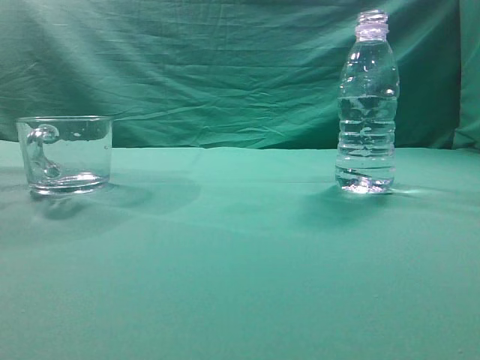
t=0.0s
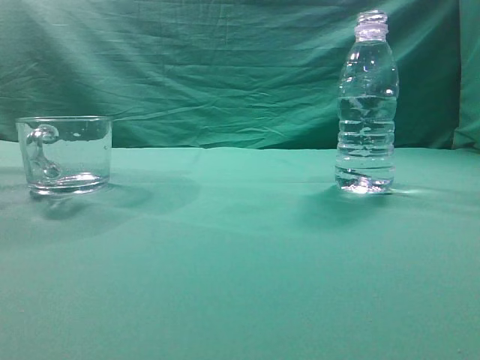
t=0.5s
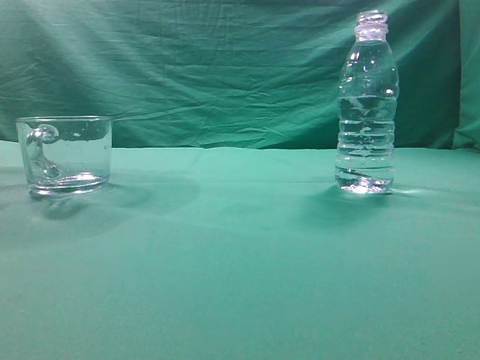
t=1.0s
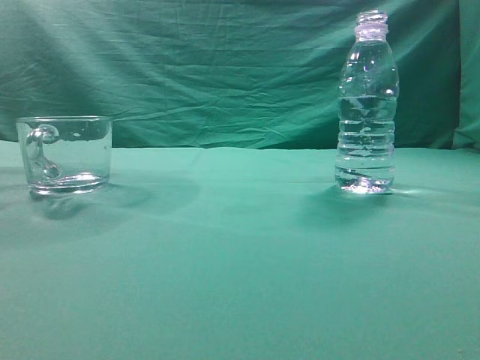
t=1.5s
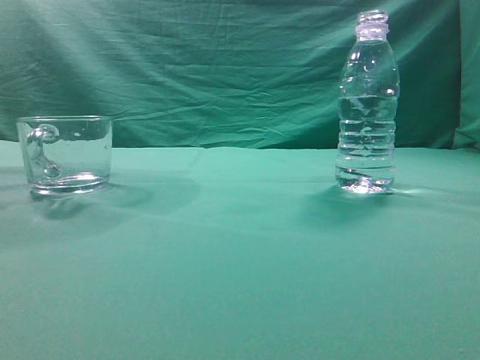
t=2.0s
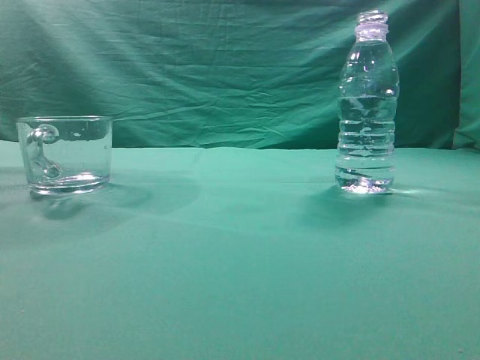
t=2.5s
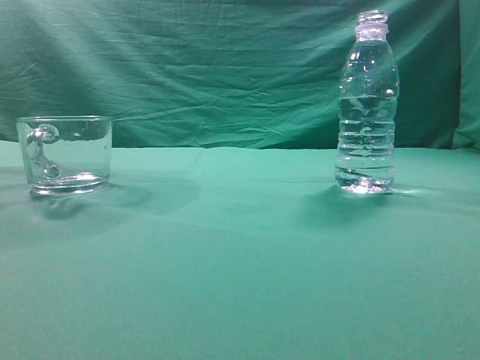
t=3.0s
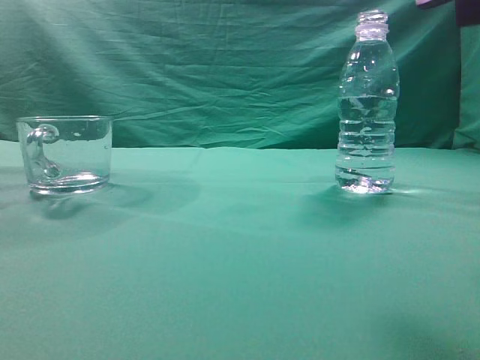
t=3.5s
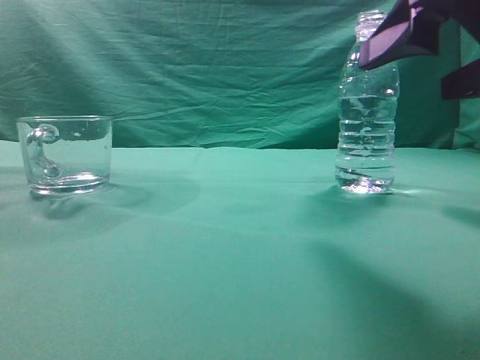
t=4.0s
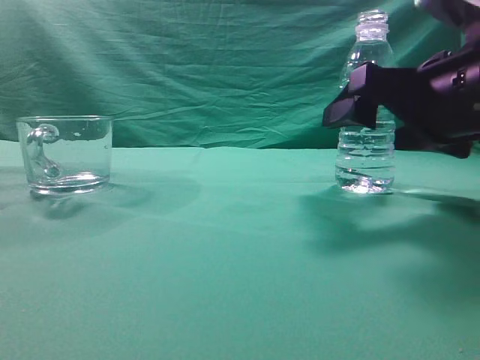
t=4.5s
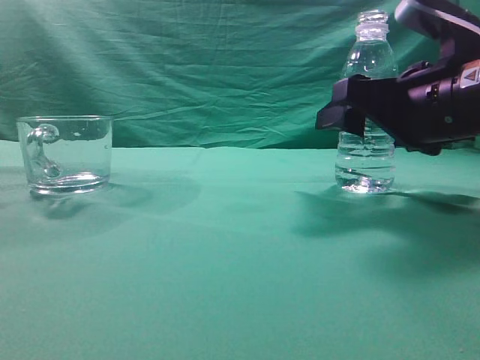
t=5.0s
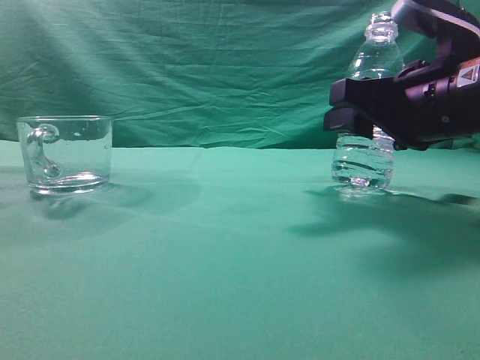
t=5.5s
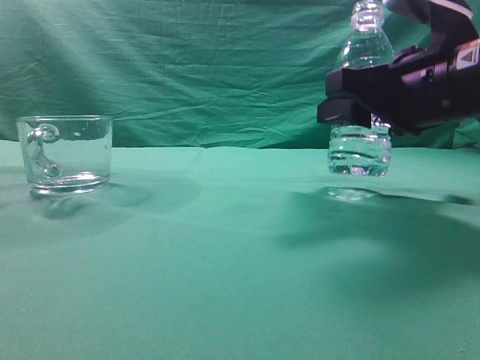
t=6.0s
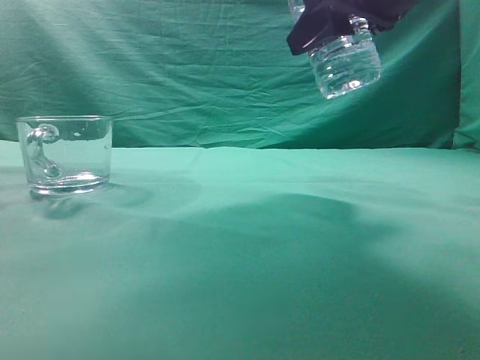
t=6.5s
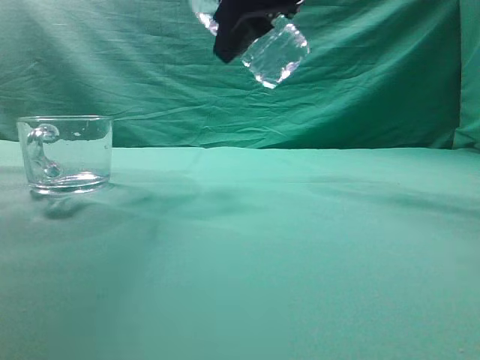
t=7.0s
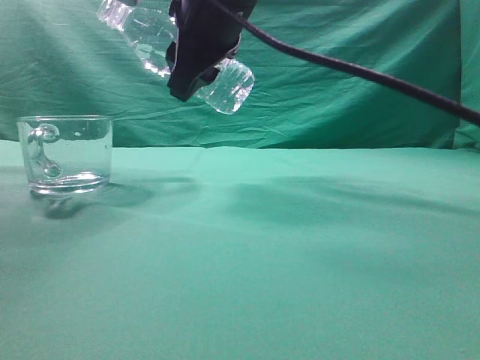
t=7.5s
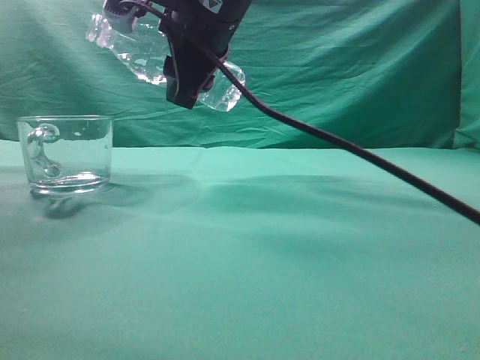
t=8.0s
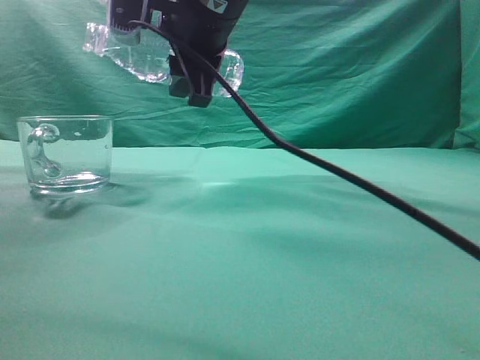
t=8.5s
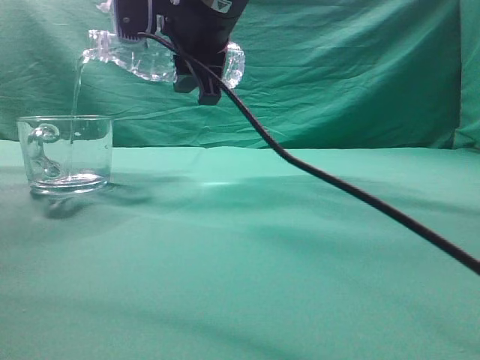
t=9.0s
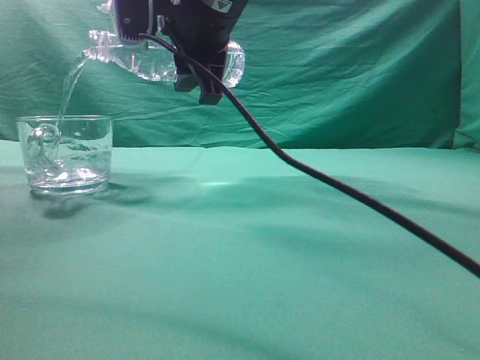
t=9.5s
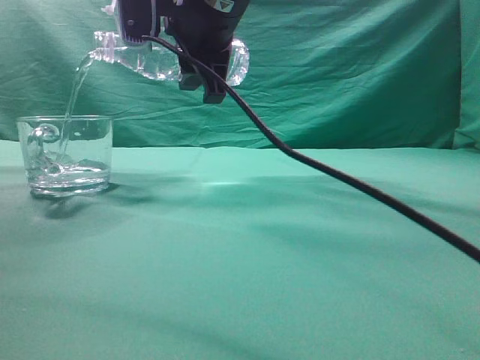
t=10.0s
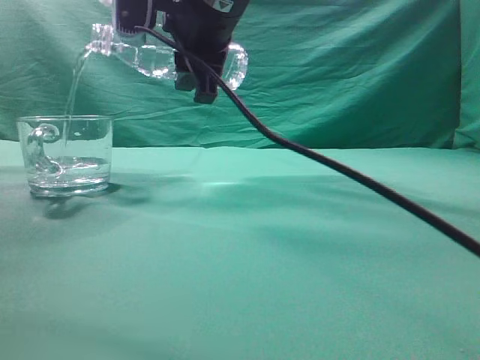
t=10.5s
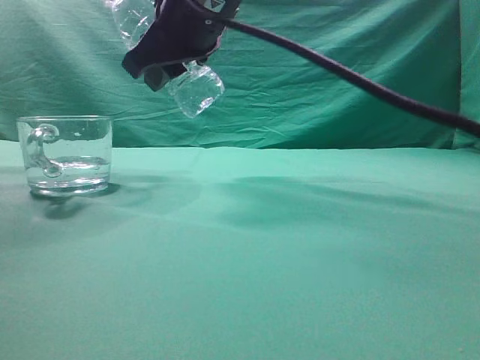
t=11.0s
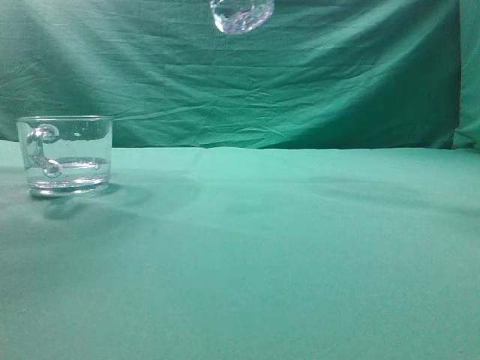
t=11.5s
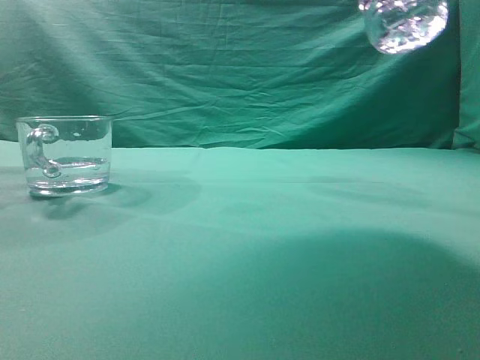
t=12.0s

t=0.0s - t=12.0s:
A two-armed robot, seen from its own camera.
Task of the whole recording: pick up the water bottle and pour the water in it into the glass.
Step, t=0.0s - t=6.0s: Grasp the mineral water bottle.
Step, t=6.5s - t=11.0s: Pour water into the teacup.
t=2.0s - t=4.0s: The right gripper moves forward and to the left, some 20 cm, and opens up.
t=4.0s - t=6.0s: The right gripper shifts about 10 cm forward, and closes its fingers.
t=6.0s - t=8.0s: The right gripper moves to the left and upward, approximately 20 cm.
t=10.0s - t=12.0s: The right gripper travels to the right and backward by about 25 cm.

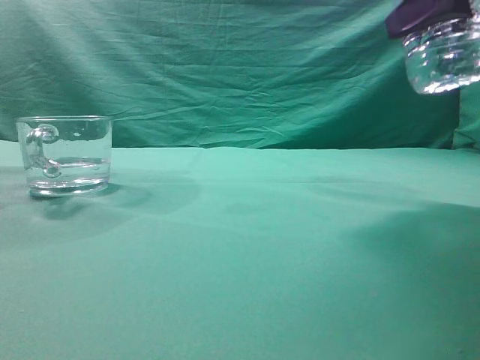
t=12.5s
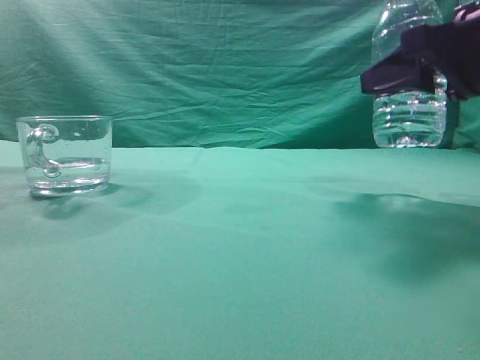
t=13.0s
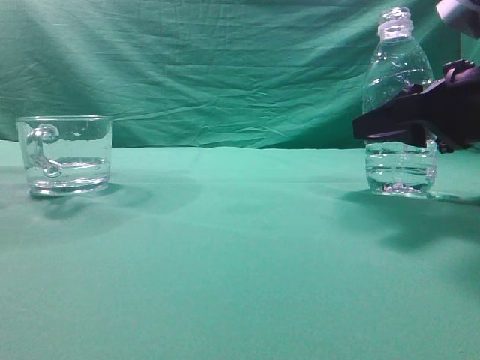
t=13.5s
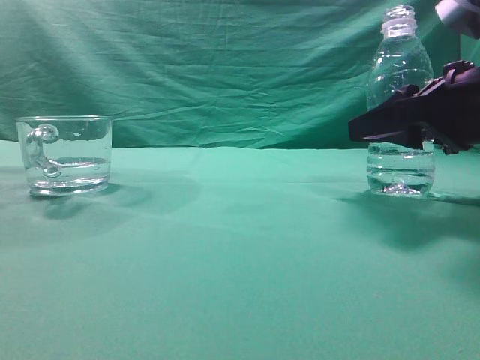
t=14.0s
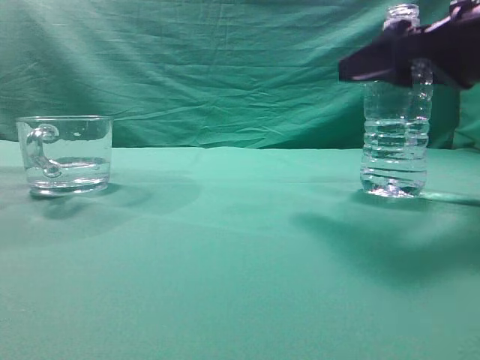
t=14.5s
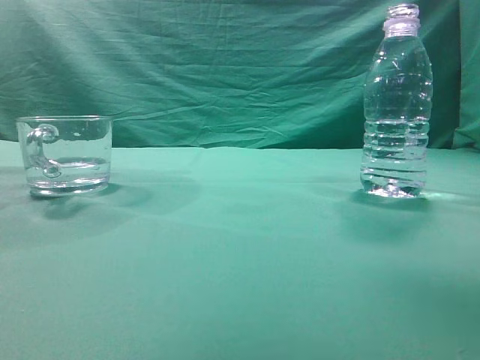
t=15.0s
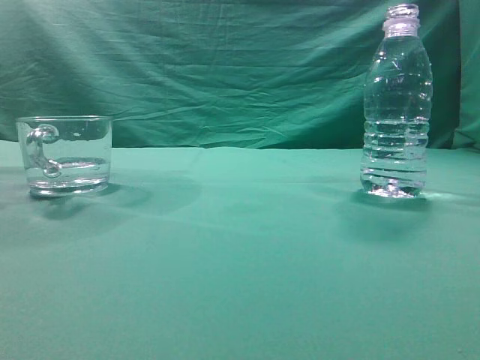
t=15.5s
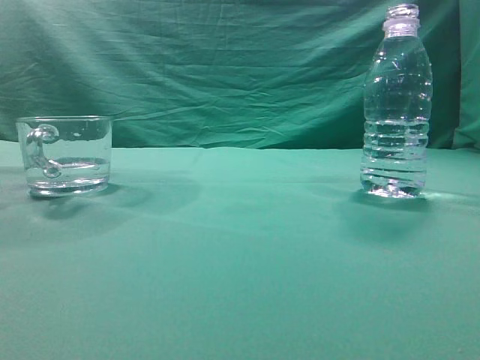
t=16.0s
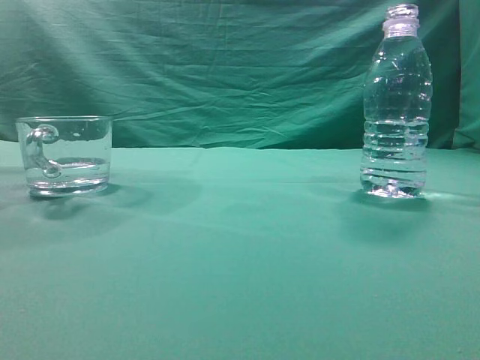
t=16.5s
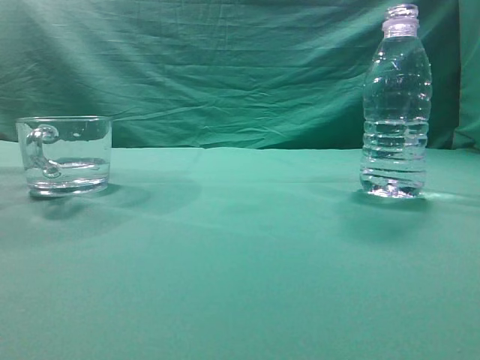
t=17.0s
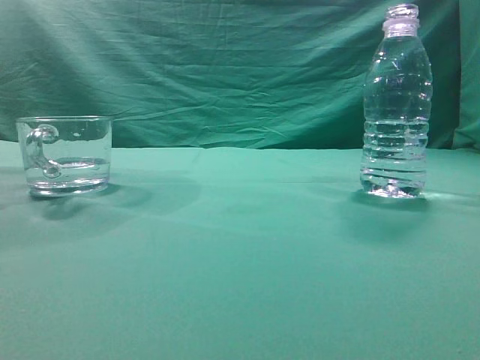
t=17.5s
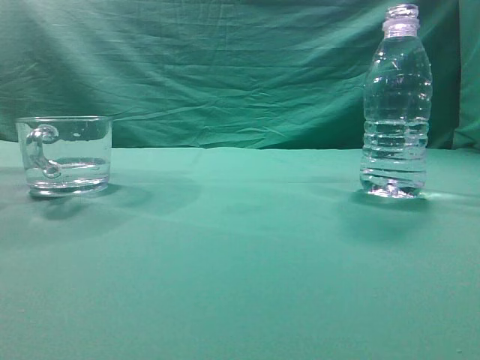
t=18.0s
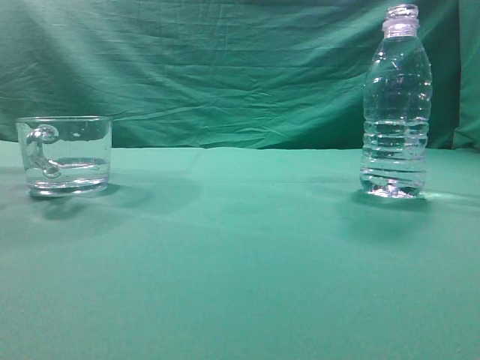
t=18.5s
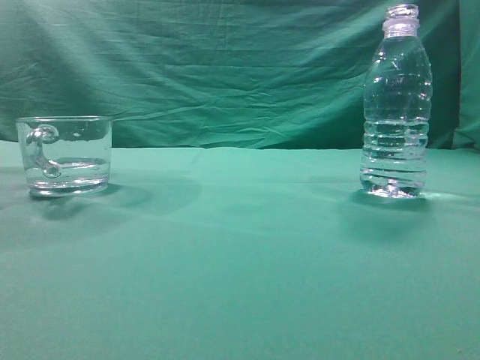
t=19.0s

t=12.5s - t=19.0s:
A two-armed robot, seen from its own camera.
Task of the whole recording: pick up the water bottle and pour the water in it into the glass.
t=12.5s - t=14.5s: The right gripper moves downward, approximately 5 cm, and opens up.
t=14.5s - t=17.0s: The right gripper is displaced backward and upward by roughly 35 cm, and closes up.
